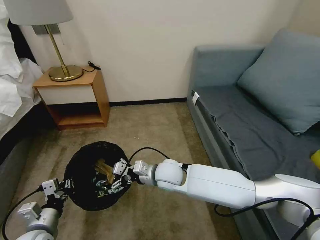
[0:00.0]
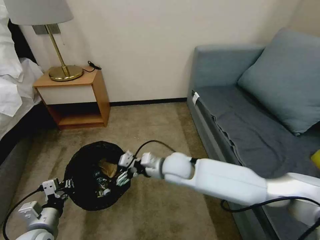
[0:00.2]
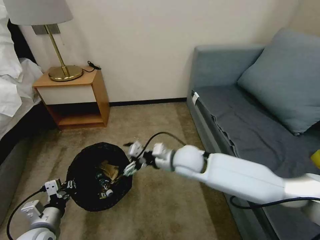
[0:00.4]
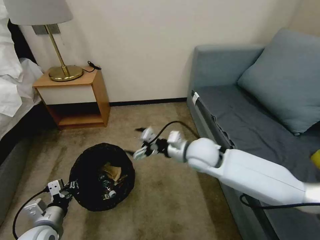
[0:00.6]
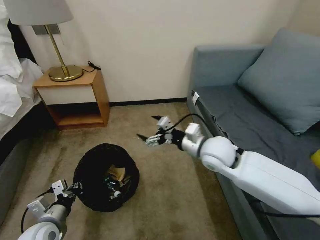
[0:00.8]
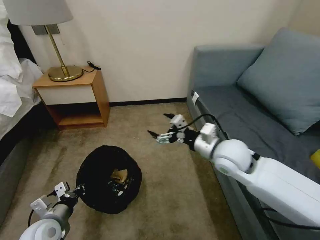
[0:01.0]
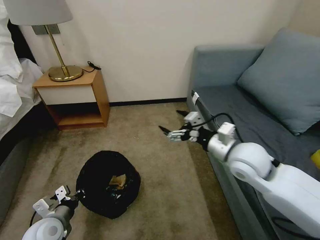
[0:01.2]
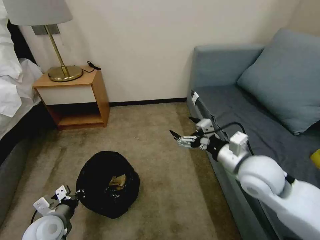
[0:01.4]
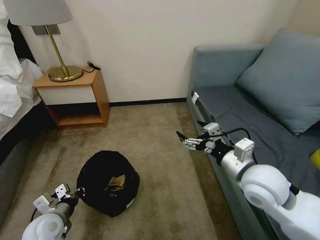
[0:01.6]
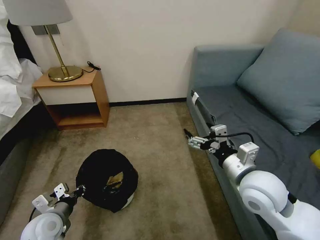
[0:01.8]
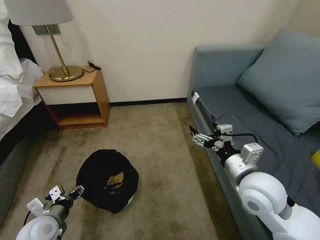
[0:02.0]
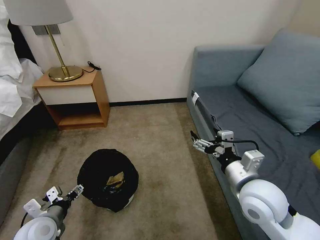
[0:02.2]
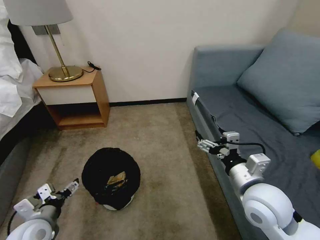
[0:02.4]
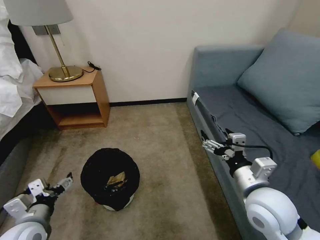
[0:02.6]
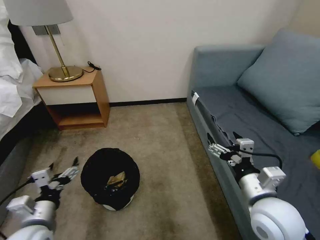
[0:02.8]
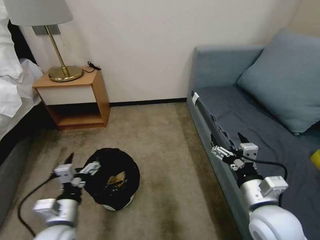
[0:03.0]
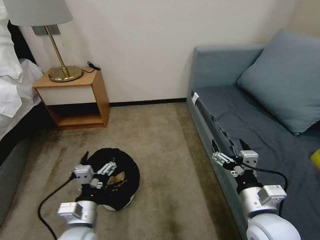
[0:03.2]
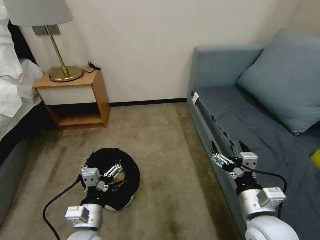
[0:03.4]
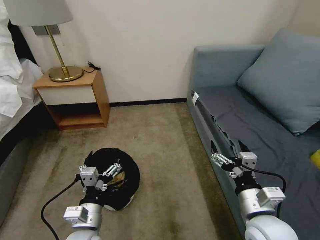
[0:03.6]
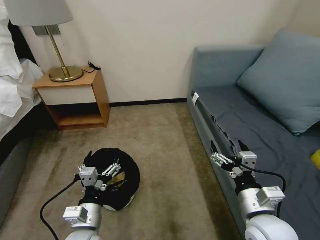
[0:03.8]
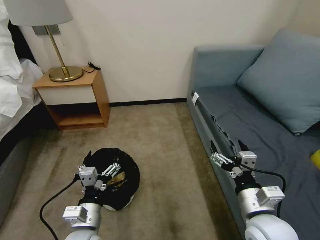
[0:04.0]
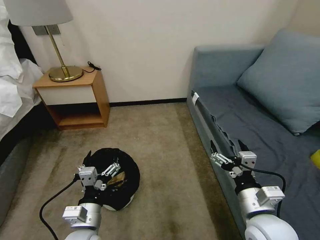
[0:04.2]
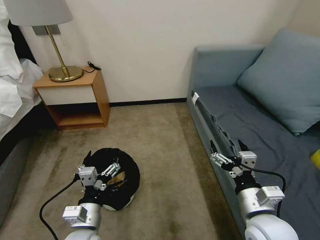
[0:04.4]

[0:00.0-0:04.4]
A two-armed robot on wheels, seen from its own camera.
Task of the whole recording: Pick up the trash bin, then pick up the garbage on the floor and place it into the trash bin.
0:00.0 to 0:01.4: The right gripper heads to the right and upward, covering some 25 cm.
0:01.4 to 0:03.0: The left gripper shifts roughly 10 cm to the right and upward, and opens its fingers. Meanwhile the right gripper heads backward and downward, covering approximately 10 cm.
0:03.0 to 0:04.4: The left gripper moves to the right, roughly 5 cm.

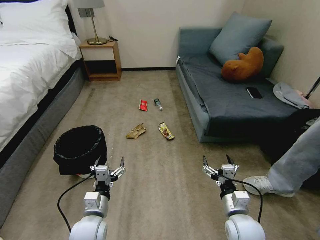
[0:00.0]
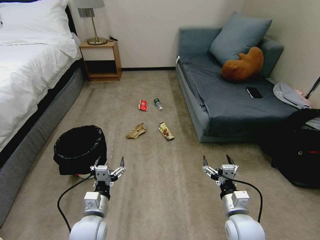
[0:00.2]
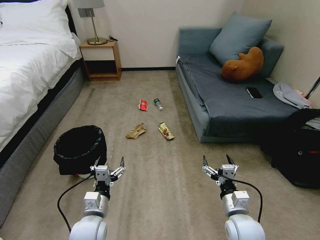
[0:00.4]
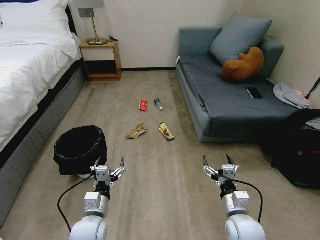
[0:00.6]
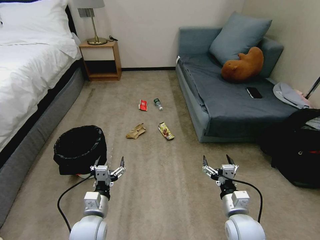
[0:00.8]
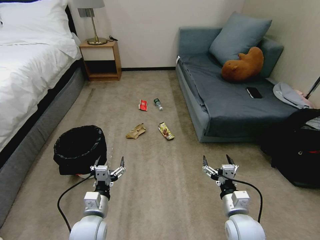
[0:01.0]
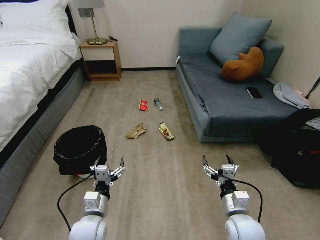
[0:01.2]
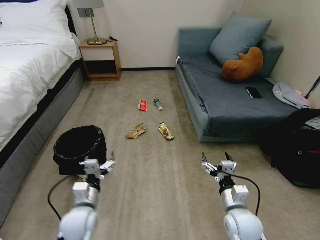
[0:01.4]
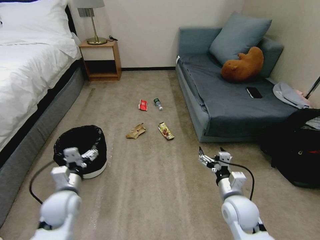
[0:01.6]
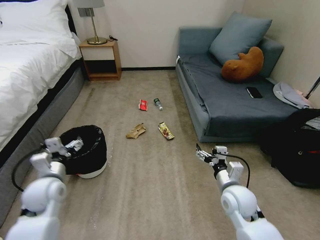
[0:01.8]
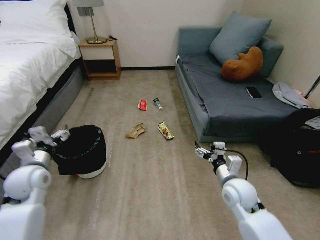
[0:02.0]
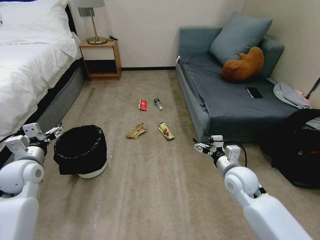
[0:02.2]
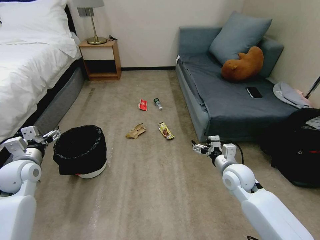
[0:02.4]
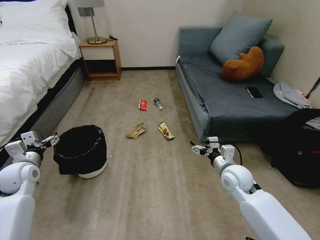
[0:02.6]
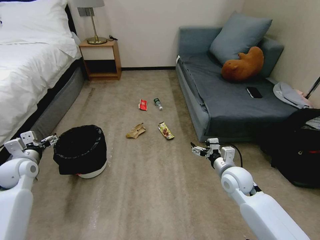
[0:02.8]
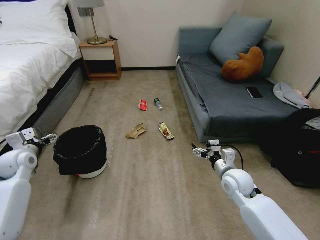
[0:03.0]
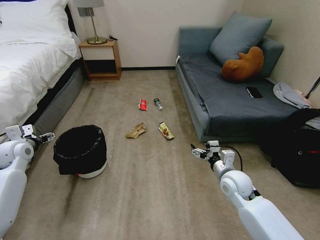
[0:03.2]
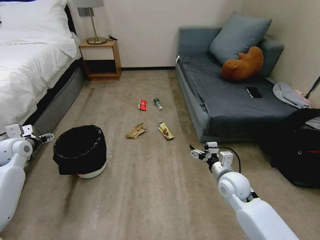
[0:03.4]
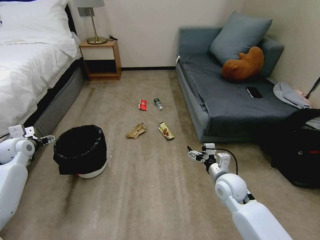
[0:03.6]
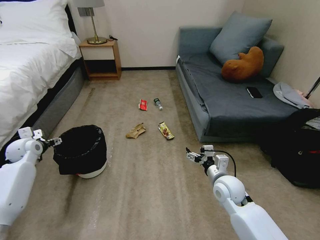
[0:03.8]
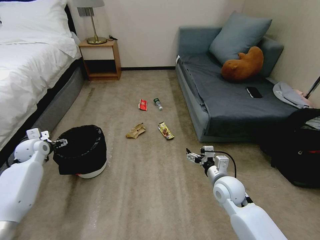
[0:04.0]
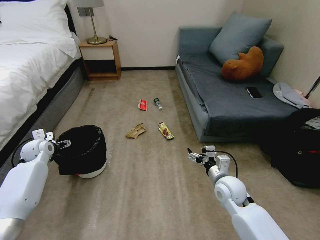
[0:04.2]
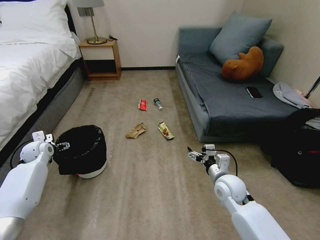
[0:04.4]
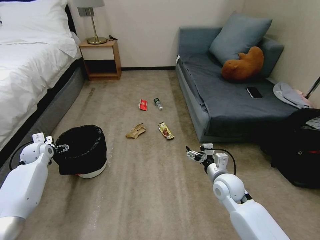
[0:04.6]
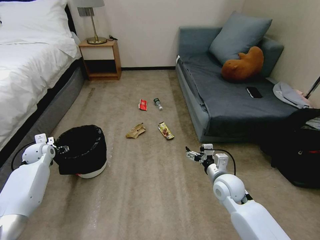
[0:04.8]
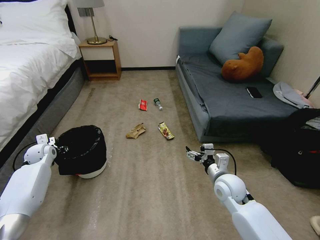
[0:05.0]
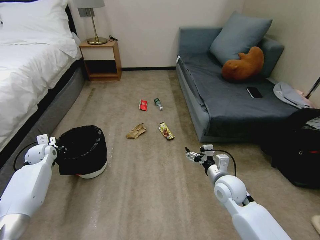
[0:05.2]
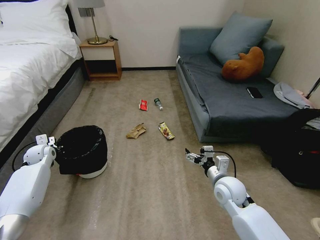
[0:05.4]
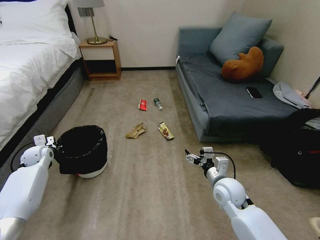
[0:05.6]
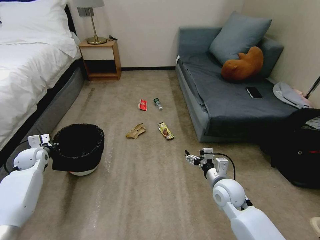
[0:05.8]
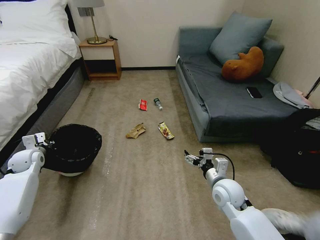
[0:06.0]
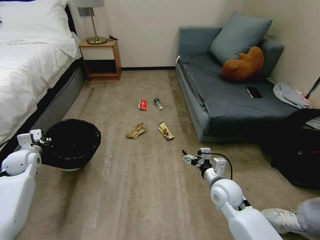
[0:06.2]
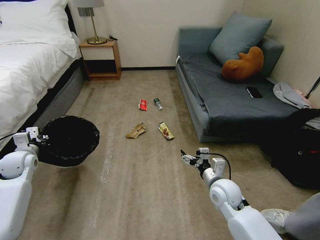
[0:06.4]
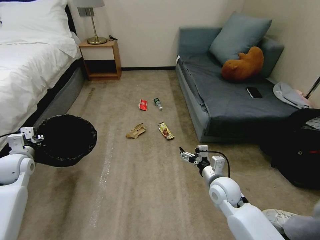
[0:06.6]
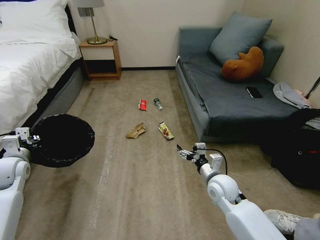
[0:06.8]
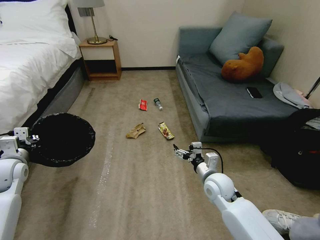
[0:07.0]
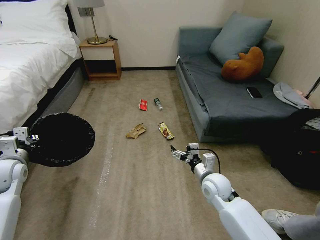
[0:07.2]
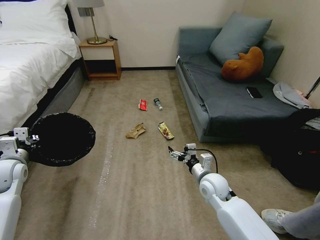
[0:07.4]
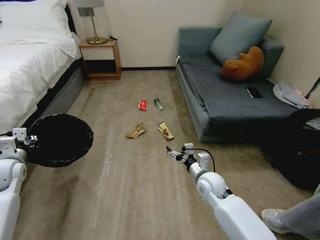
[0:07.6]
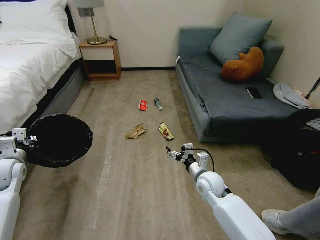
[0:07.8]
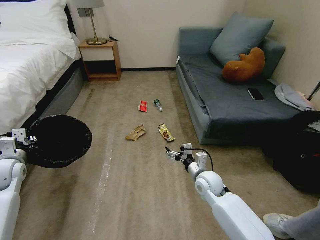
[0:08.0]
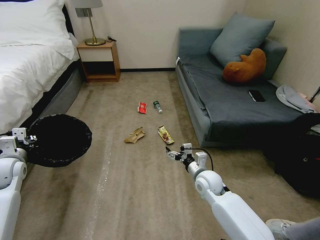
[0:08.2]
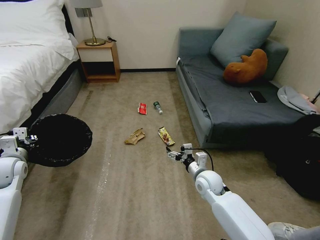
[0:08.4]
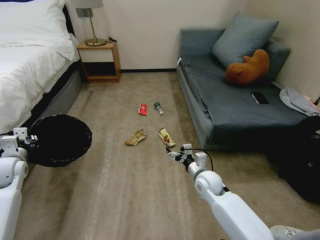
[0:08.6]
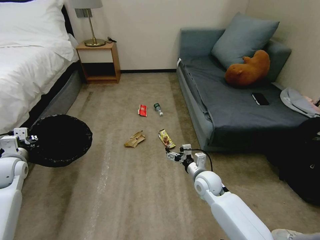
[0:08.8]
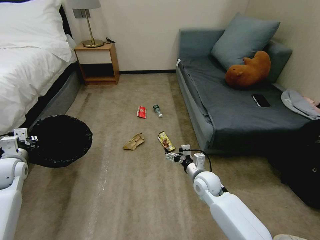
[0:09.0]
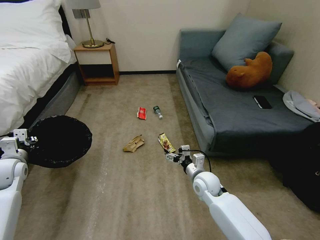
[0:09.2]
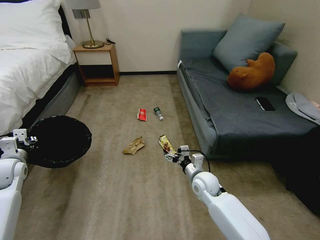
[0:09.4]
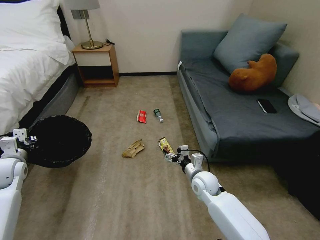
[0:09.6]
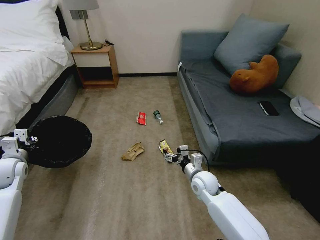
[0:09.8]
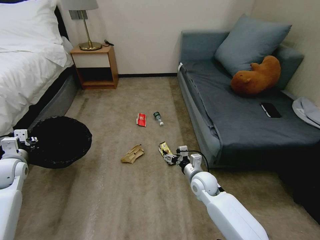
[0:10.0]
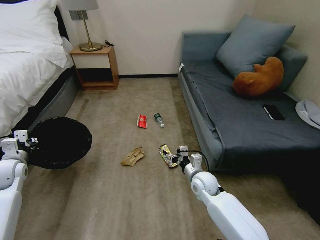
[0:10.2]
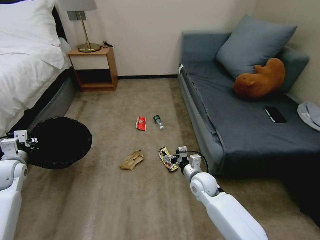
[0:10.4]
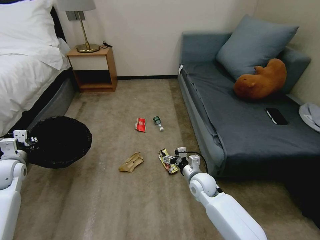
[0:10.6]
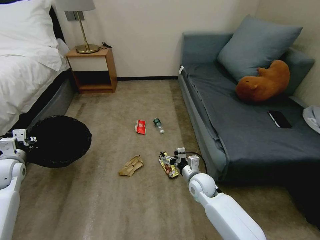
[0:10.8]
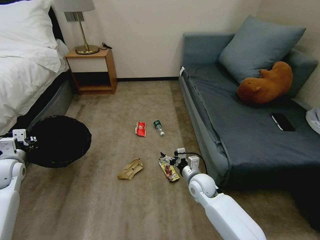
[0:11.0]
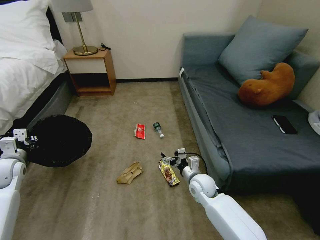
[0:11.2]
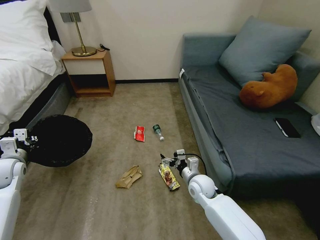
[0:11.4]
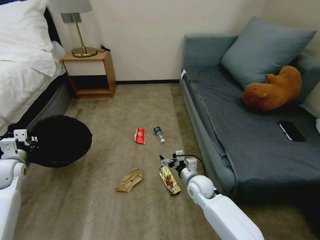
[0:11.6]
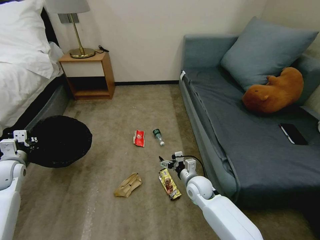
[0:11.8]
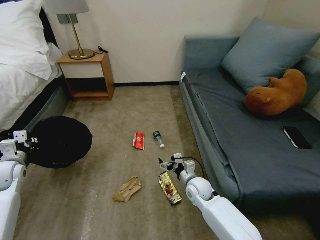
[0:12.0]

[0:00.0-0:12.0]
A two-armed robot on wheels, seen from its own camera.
Task of the whole recording: Pick up the trash bin, then pick up the garbage on the floor and place it into the trash bin.
0:01.6 to 0:03.0: The right gripper heads forward, covering about 10 cm, while the left gripper moves to the left and forward, about 20 cm.
0:03.0 to 0:04.4: The left gripper heads forward and downward, covering roughly 10 cm.
0:04.4 to 0:06.0: The left gripper closes up.
0:06.0 to 0:07.6: The right gripper moves some 5 cm. Meanwhile the left gripper heads backward and upward, covering some 10 cm.

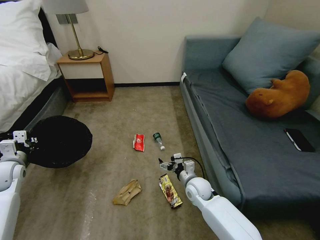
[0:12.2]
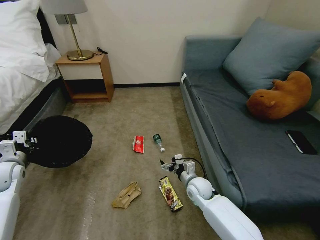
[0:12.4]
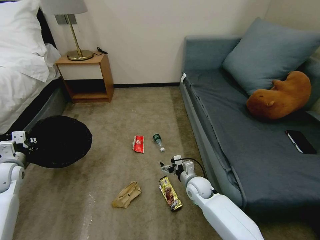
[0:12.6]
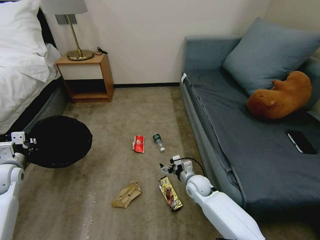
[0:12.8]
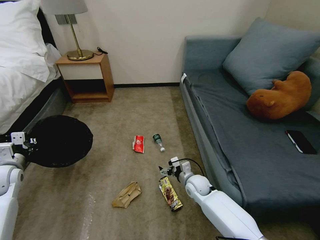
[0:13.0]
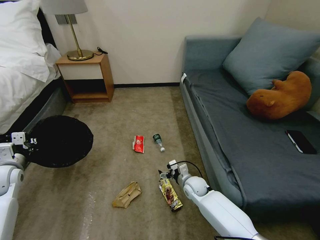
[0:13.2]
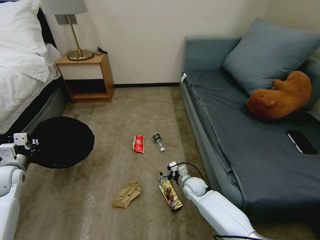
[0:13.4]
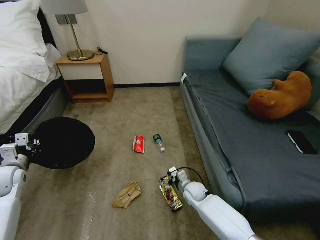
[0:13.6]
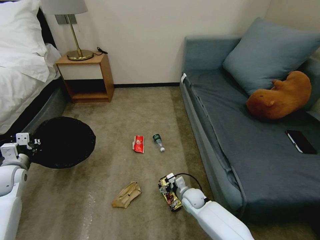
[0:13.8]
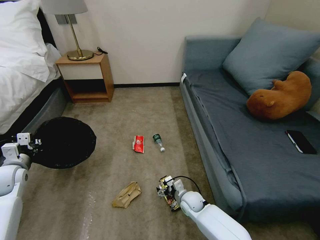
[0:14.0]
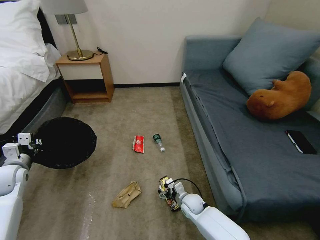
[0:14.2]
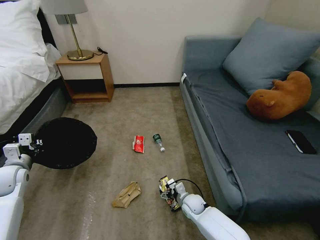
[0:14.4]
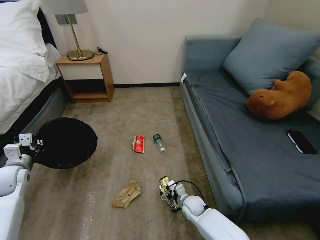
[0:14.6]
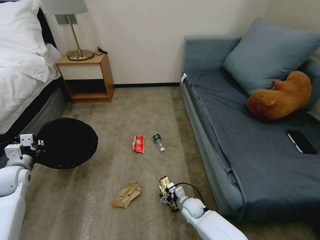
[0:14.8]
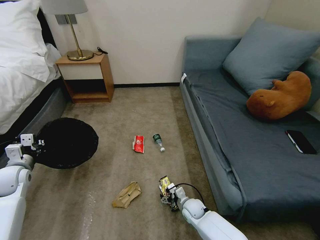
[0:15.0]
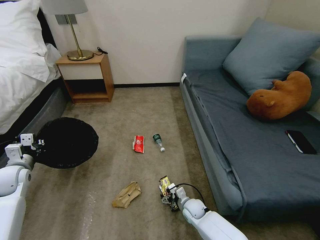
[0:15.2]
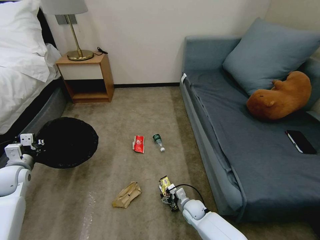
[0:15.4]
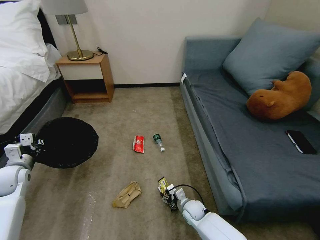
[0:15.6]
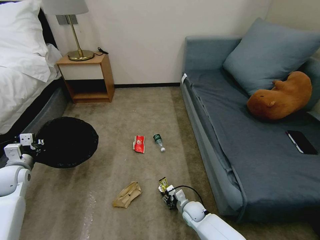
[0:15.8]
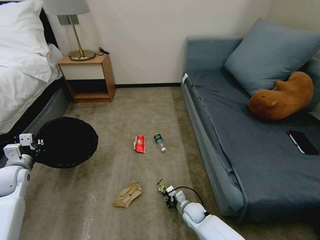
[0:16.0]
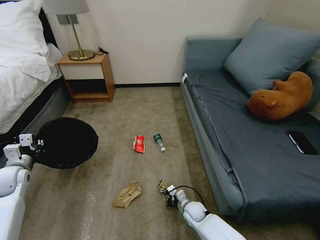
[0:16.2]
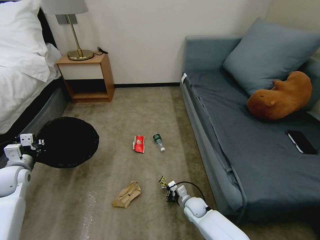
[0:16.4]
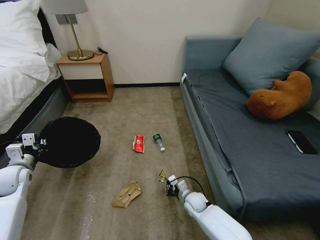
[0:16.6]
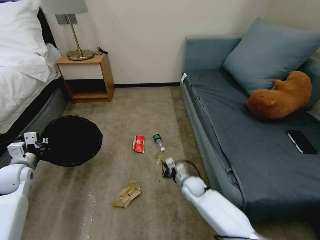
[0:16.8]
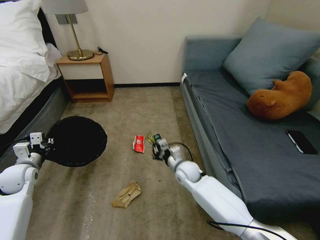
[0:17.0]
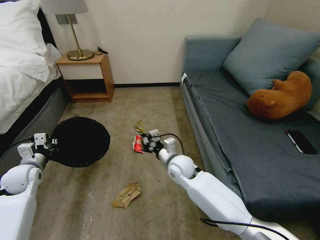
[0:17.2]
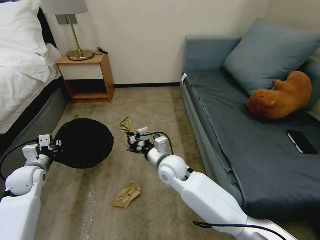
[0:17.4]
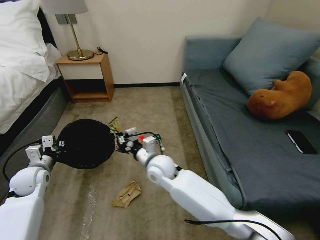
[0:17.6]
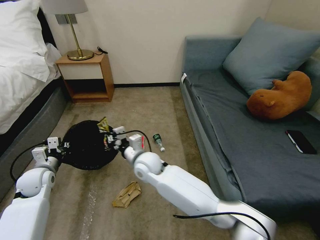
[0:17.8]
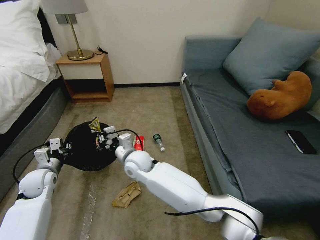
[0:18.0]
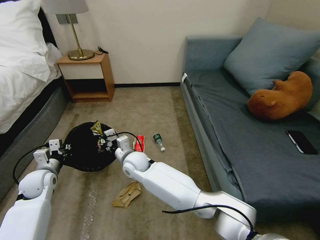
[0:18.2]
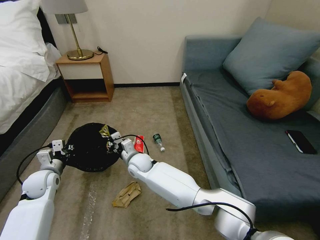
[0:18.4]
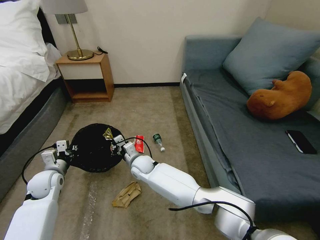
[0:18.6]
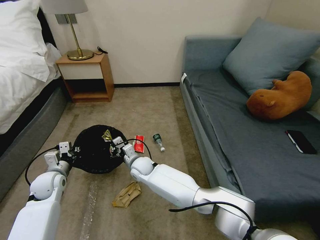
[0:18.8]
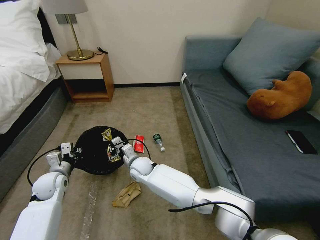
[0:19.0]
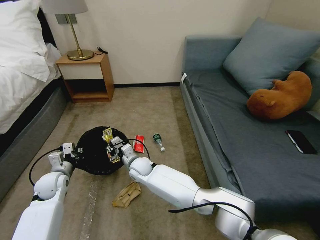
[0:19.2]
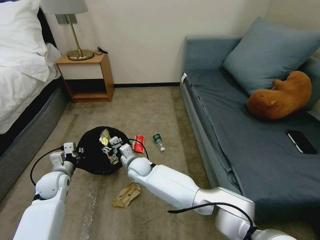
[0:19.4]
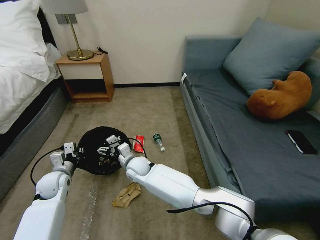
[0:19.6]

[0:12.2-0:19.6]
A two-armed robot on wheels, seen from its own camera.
Task of the whole recording: Pick up the trash bin, then pick up the garbage on the floor and place it into the trash bin.
0:12.2 to 0:13.6: The right gripper moves downward, approximately 10 cm.
0:13.6 to 0:15.2: The right gripper is displaced backward and downward by approximately 10 cm.
0:15.2 to 0:16.6: The right gripper closes.
0:16.6 to 0:18.2: The left gripper moves to the right, some 5 cm. The right gripper moves to the left and upward, about 30 cm.
0:18.2 to 0:19.6: The right gripper opens.
